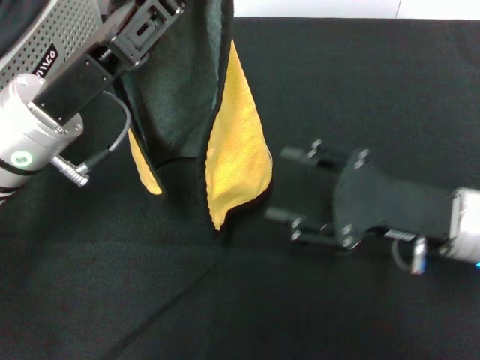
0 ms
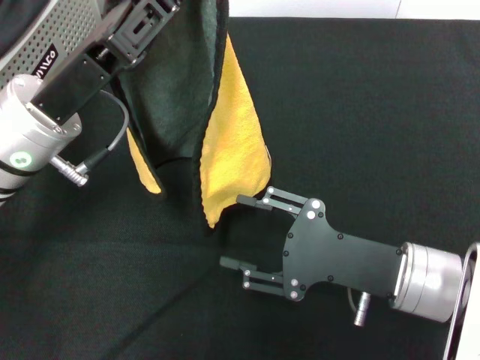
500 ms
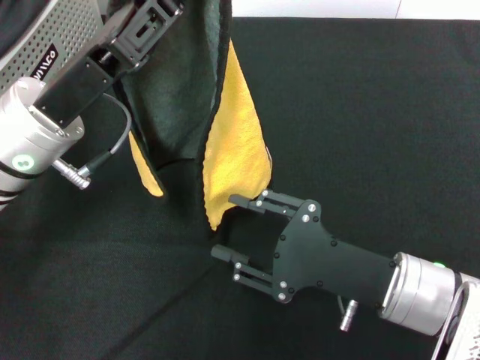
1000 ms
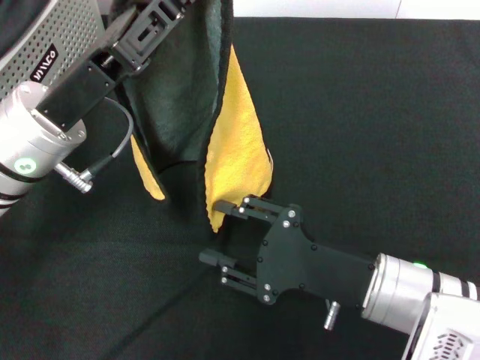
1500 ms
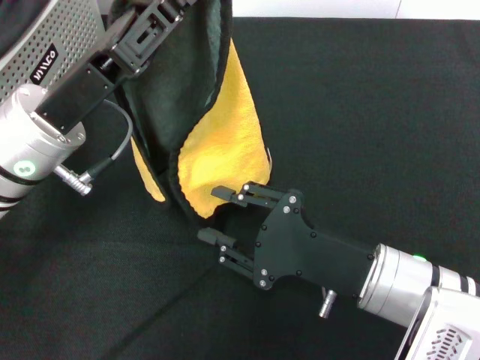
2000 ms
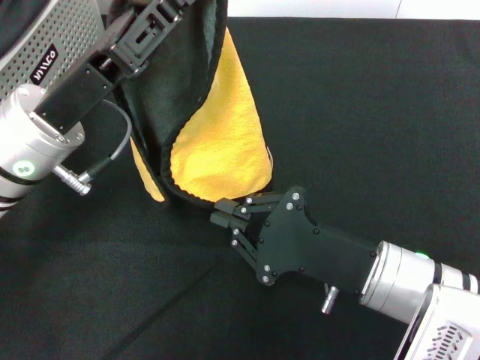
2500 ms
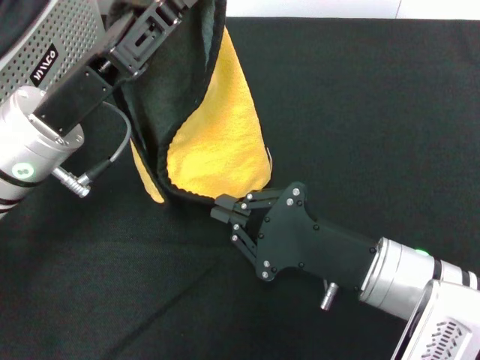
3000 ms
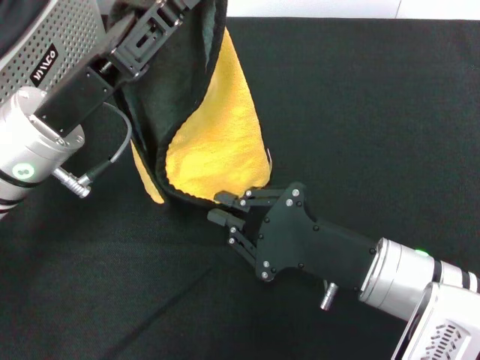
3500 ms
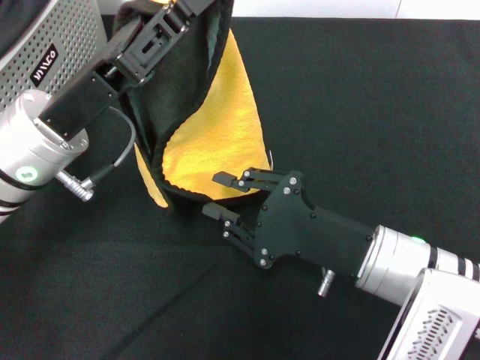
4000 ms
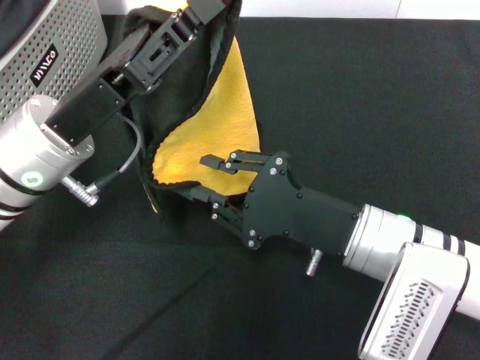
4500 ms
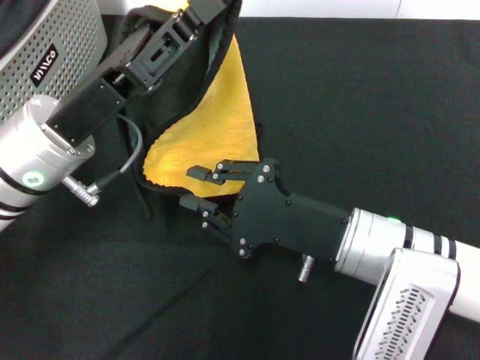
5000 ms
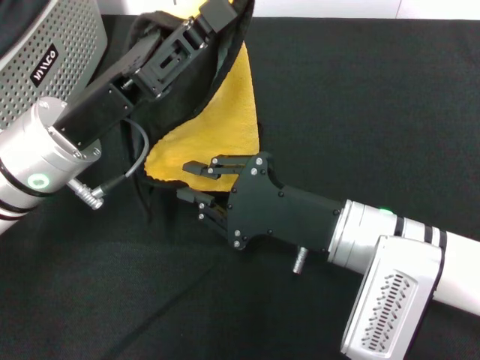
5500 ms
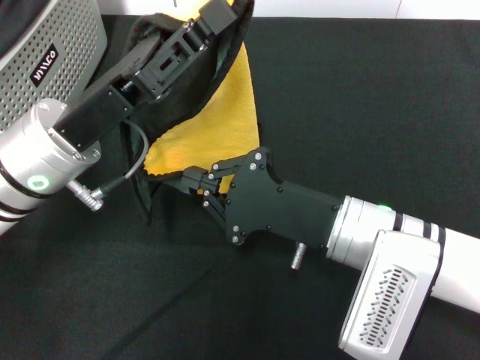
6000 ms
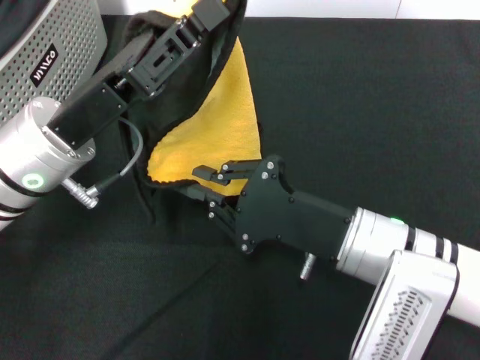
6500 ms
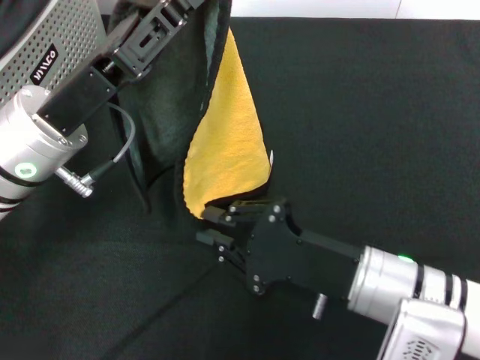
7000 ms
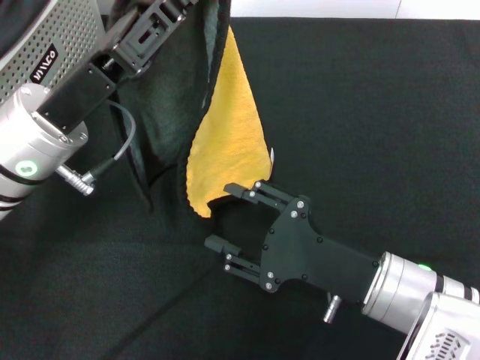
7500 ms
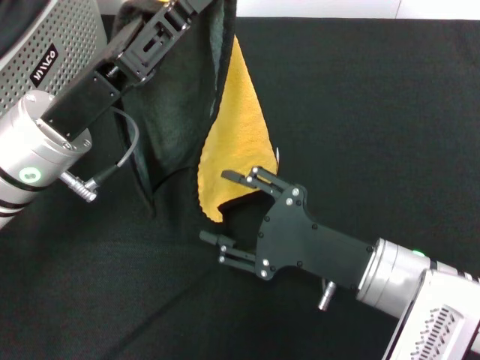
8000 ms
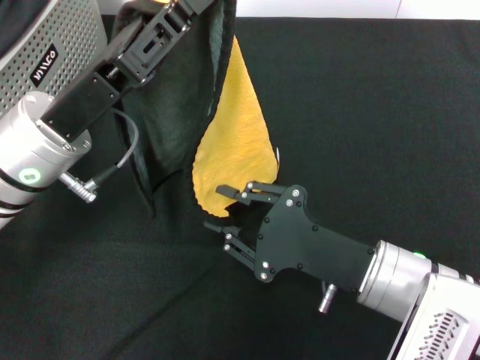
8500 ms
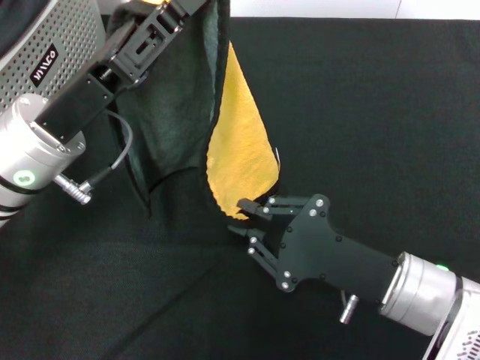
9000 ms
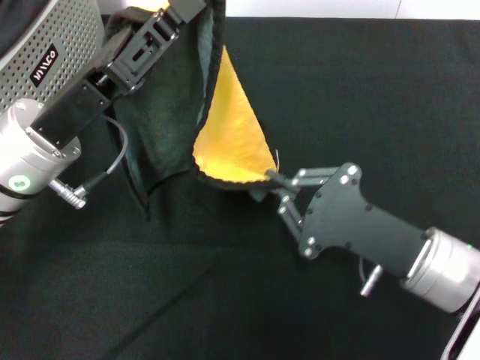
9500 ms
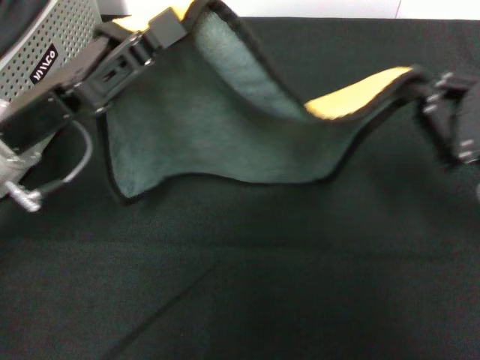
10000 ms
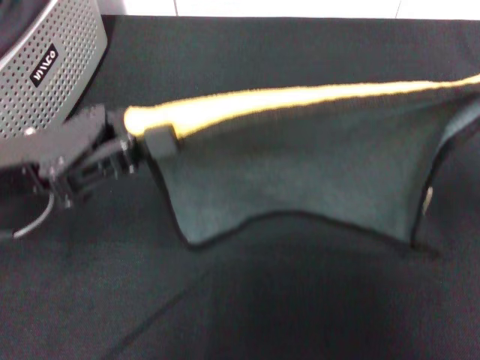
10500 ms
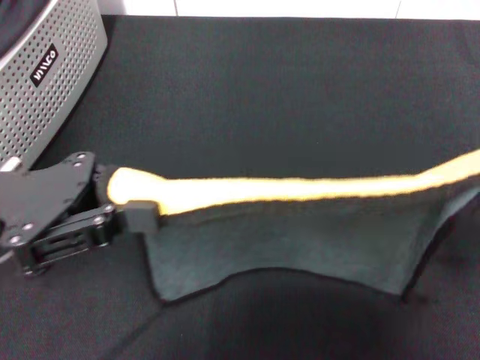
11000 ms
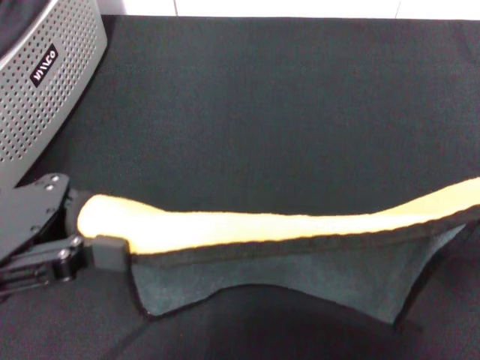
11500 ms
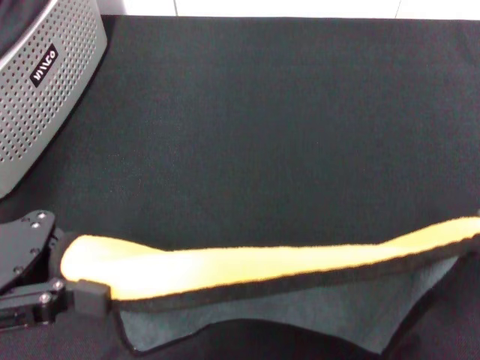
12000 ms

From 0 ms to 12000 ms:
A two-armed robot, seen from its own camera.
Task of the whole recording: pick up the towel from the storage box and lay it flat on the black tablecloth.
From 0 ms to 2000 ms: The right gripper travels to the left by about 5 cm.
From 2000 ms to 4000 ms: Both grippers stay put.
From 6000 ms to 8000 ms: The right gripper opens up.
From 8000 ms to 10000 ms: The right gripper travels to the right and upward by approximately 15 cm, and closes.
From 10000 ms to 12000 ms: The right gripper moves approximately 5 cm. The left gripper moves to the left and backward, roughly 10 cm.

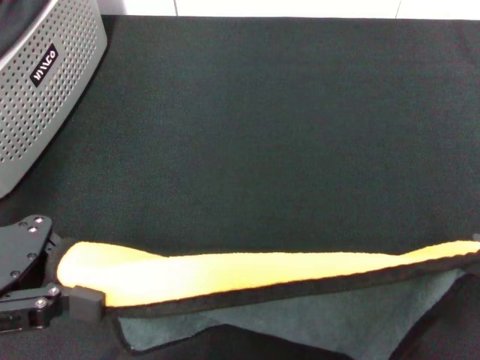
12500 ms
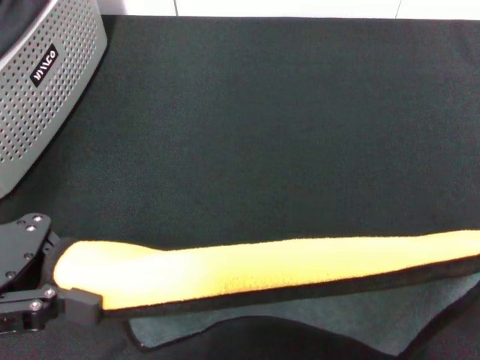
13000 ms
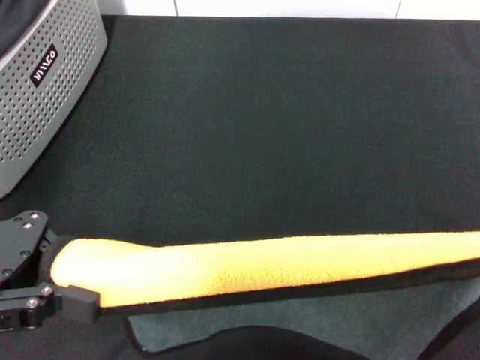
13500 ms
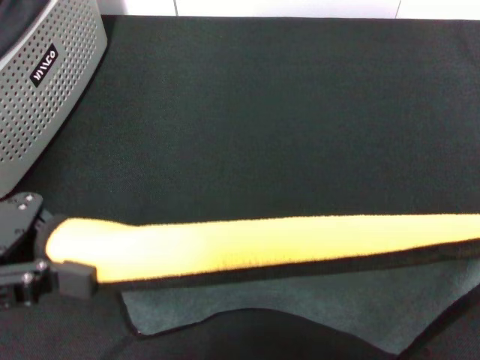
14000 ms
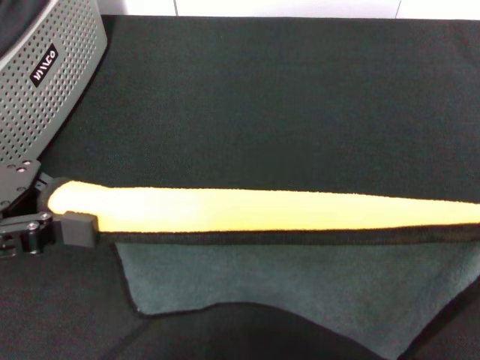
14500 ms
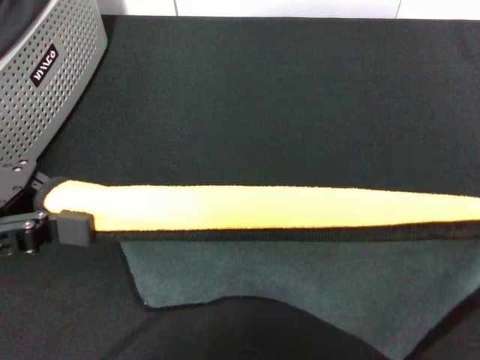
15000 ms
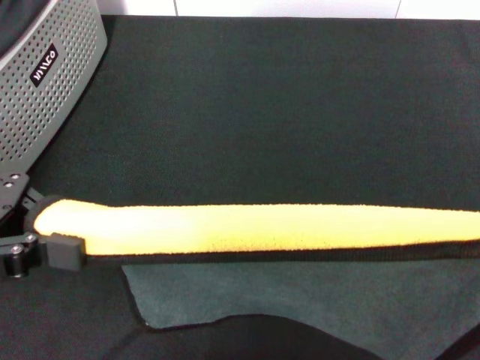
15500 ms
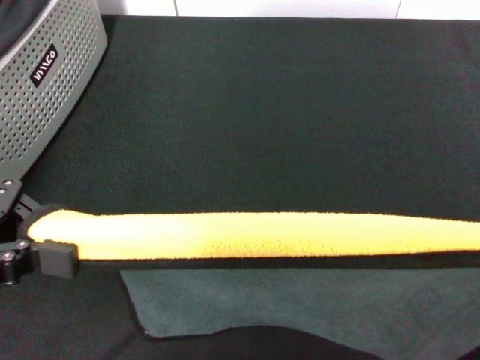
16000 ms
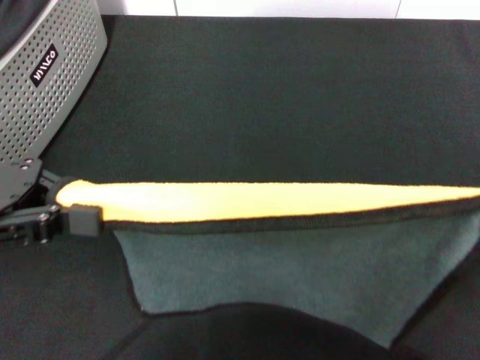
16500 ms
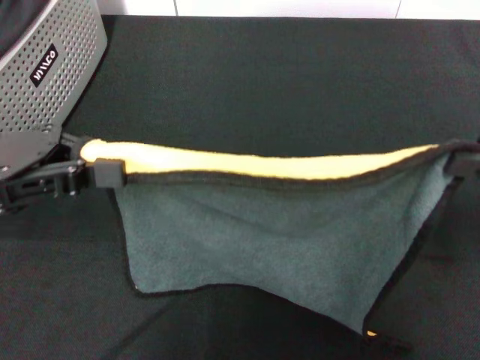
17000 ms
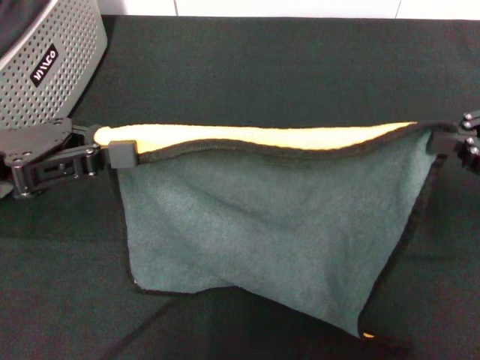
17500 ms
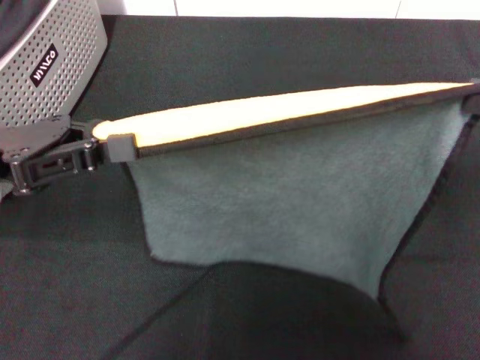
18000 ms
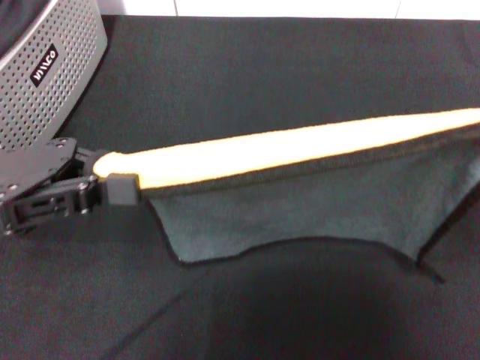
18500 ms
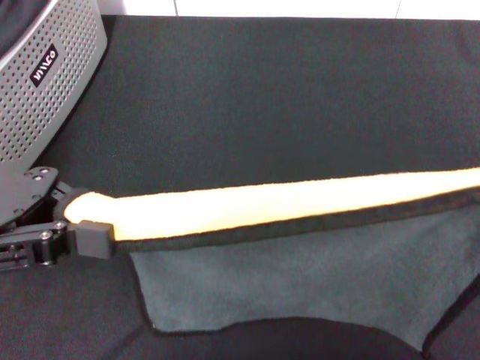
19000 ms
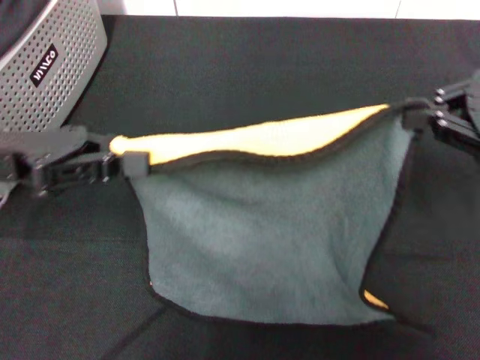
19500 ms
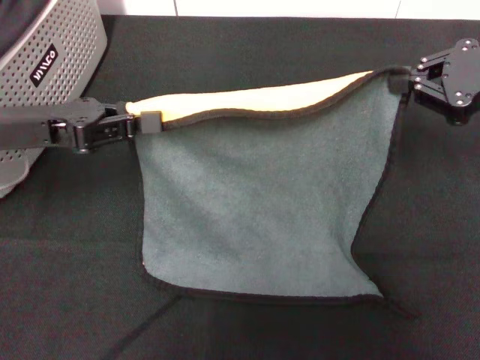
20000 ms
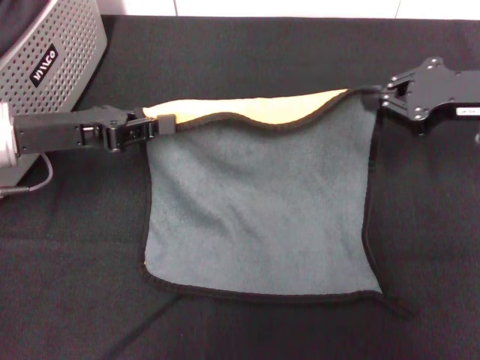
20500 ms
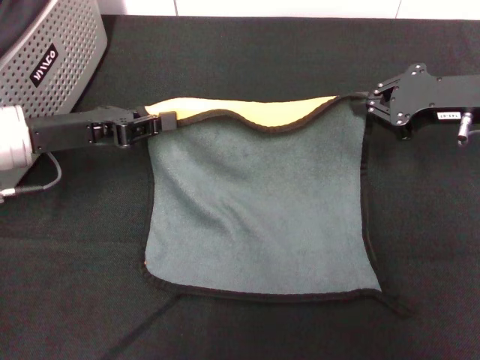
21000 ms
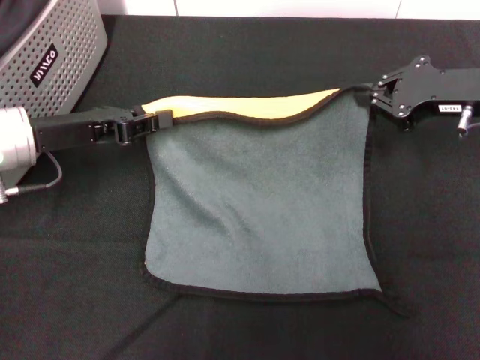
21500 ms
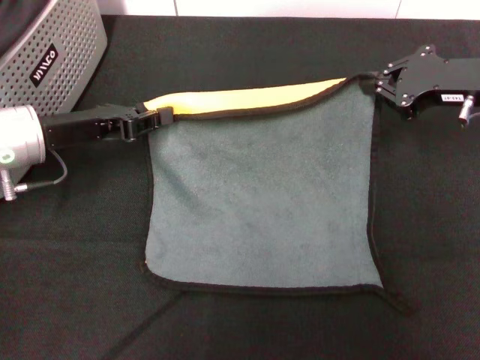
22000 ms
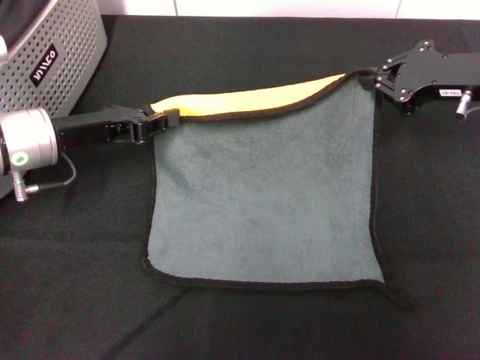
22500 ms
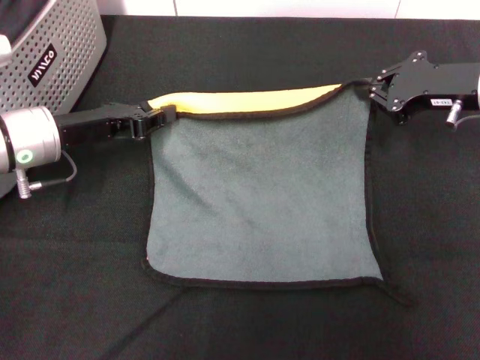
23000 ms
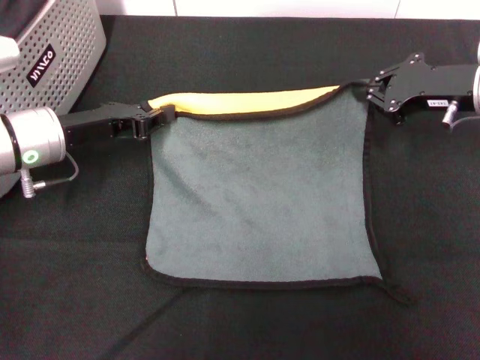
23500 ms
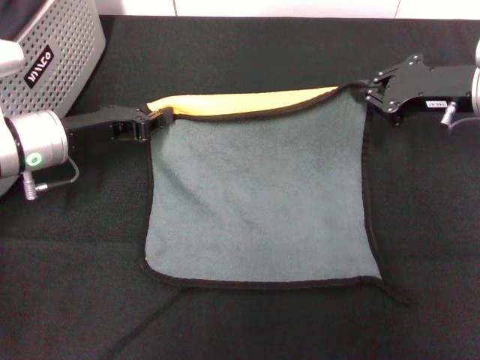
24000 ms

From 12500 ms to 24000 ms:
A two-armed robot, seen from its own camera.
Task of the whole recording: pick up the towel from the storage box and lay it flat on the black tablecloth.
From 14500 ms to 16500 ms: The grippers stay close to where they were, moving slightly.
From 16500 ms to 18500 ms: The right gripper changes place by some 5 cm.
From 18500 ms to 20000 ms: The left gripper is displaced forward by about 5 cm, while the right gripper is displaced forward by about 10 cm.
From 20000 ms to 22000 ms: The left gripper travels downward by approximately 5 cm. Meanwhile the right gripper moves roughly 5 cm.
From 22000 ms to 24000 ms: The grippers move only a little.

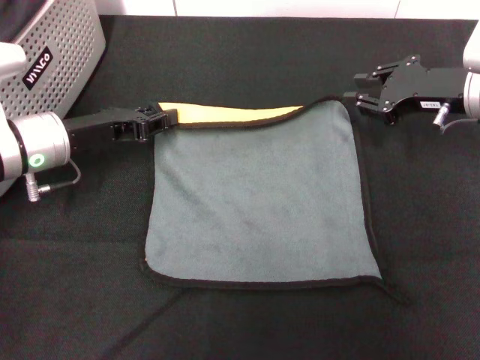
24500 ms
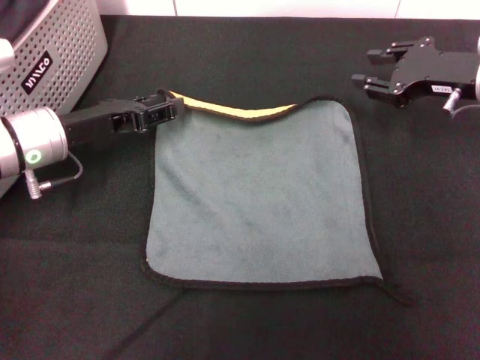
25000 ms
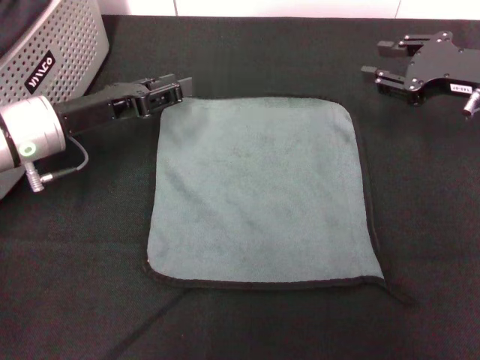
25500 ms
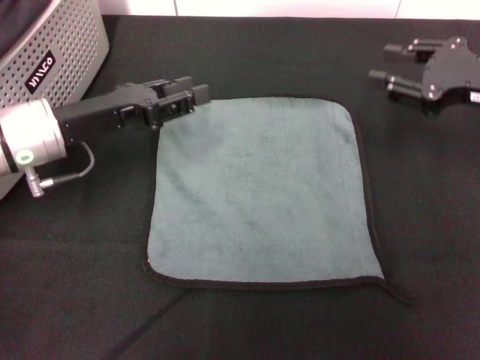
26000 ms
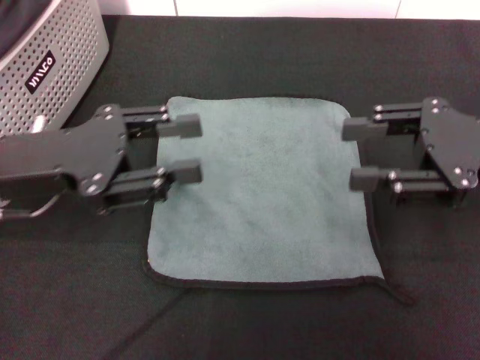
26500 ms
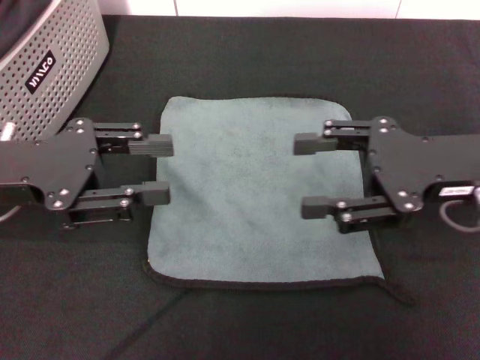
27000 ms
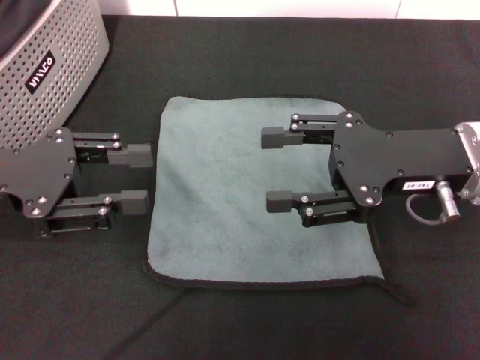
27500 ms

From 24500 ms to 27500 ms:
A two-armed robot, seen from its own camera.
Task of the whole recording: pick up the towel from the storage box and lay it flat on the black tablecloth.
From 24500 ms to 26000 ms: The right gripper moves about 5 cm; the left gripper opens its fingers.
From 26000 ms to 27500 ms: The left gripper goes about 10 cm backward and to the left, while the right gripper shifts some 10 cm to the left and backward.
